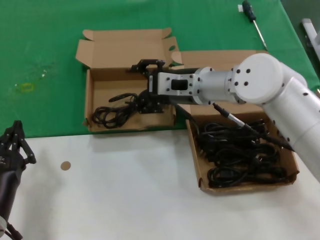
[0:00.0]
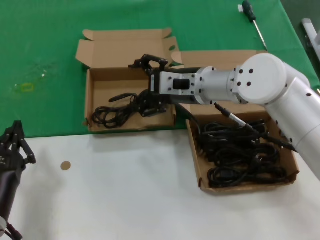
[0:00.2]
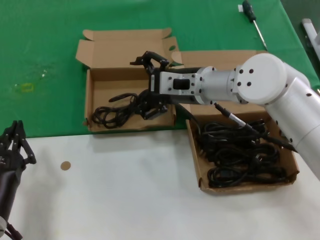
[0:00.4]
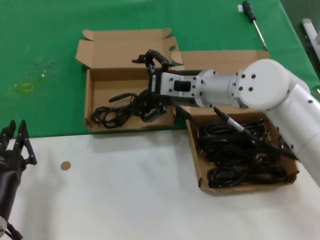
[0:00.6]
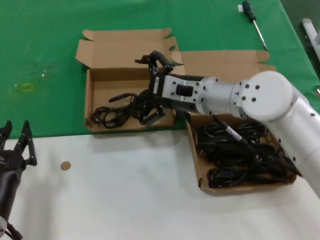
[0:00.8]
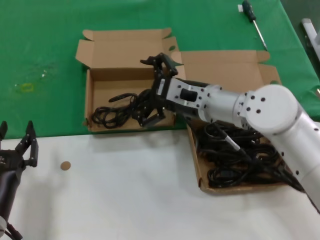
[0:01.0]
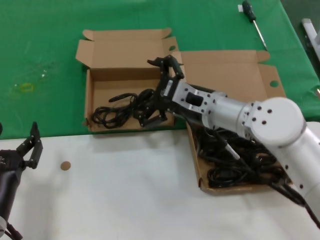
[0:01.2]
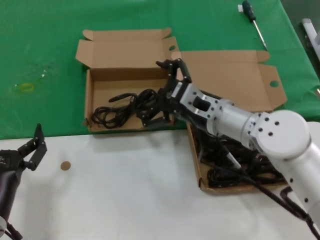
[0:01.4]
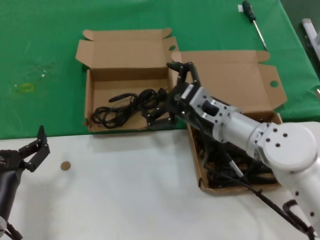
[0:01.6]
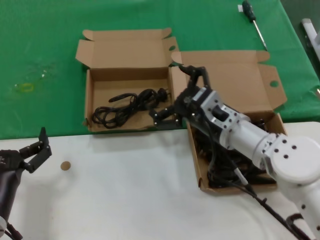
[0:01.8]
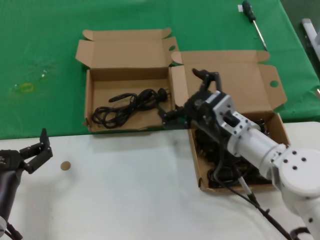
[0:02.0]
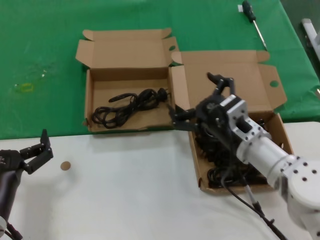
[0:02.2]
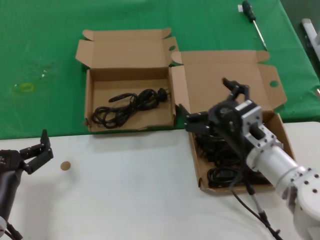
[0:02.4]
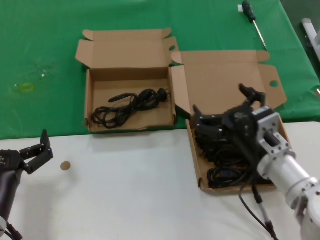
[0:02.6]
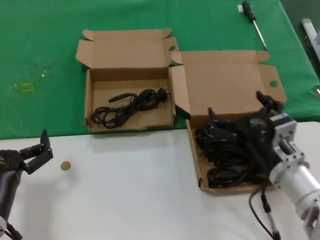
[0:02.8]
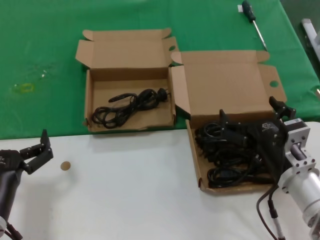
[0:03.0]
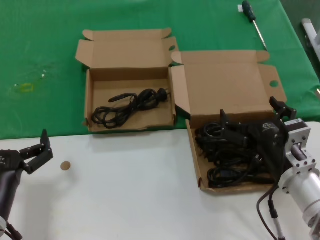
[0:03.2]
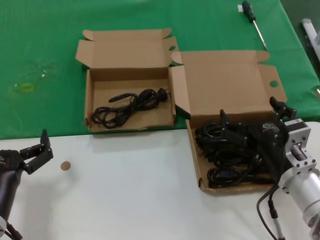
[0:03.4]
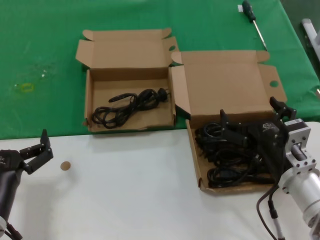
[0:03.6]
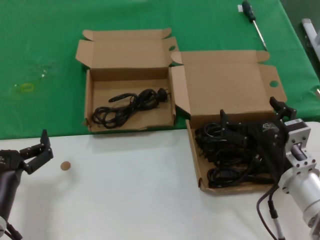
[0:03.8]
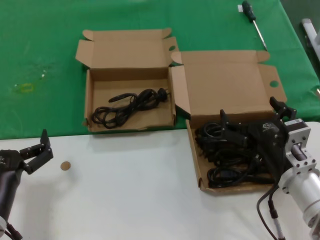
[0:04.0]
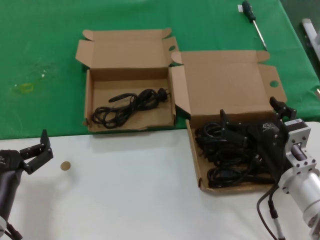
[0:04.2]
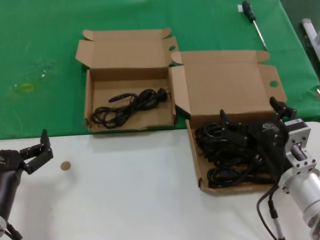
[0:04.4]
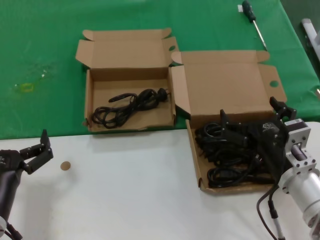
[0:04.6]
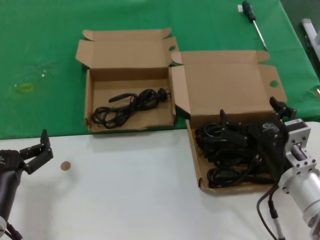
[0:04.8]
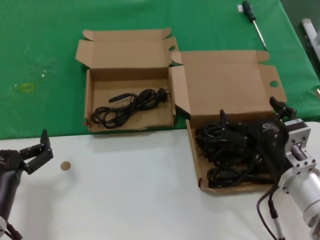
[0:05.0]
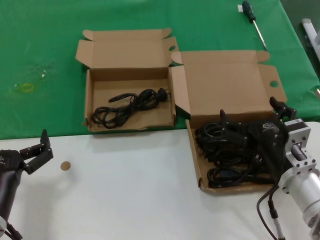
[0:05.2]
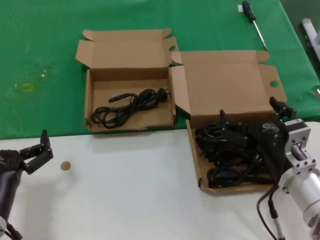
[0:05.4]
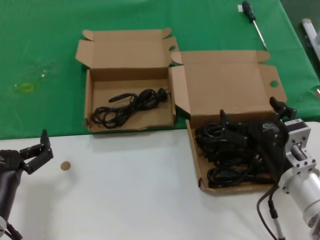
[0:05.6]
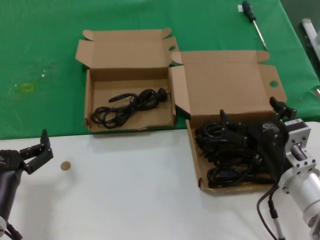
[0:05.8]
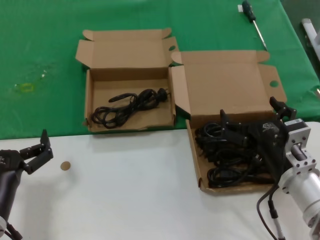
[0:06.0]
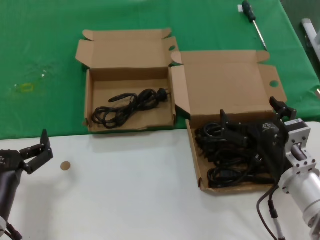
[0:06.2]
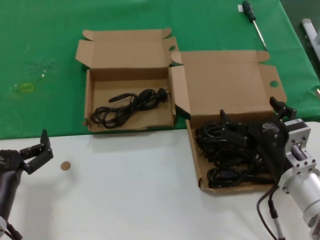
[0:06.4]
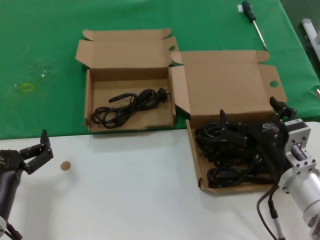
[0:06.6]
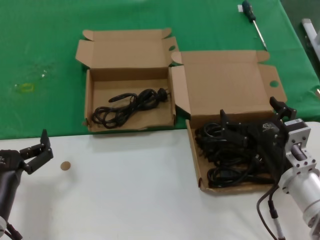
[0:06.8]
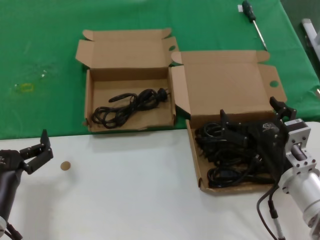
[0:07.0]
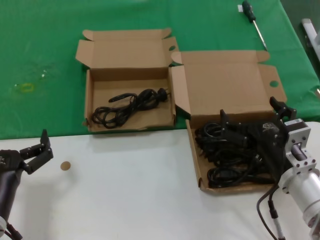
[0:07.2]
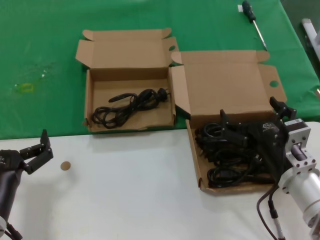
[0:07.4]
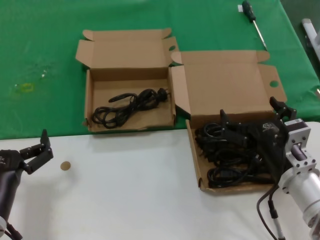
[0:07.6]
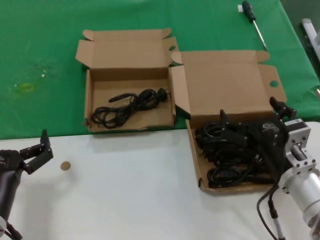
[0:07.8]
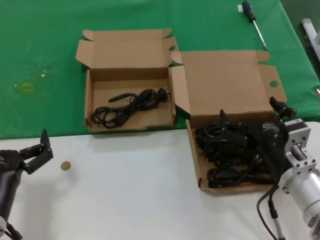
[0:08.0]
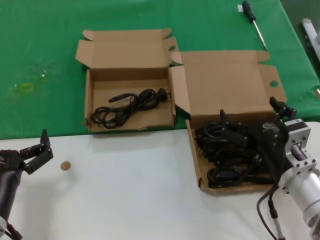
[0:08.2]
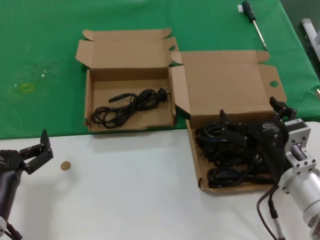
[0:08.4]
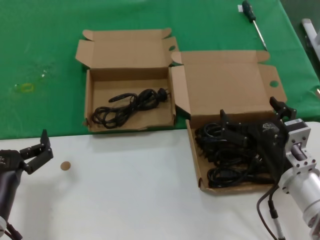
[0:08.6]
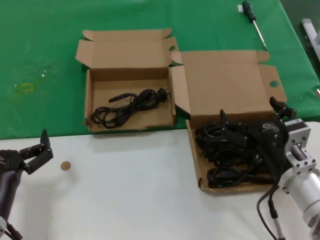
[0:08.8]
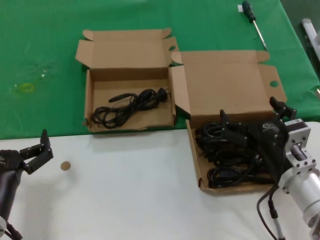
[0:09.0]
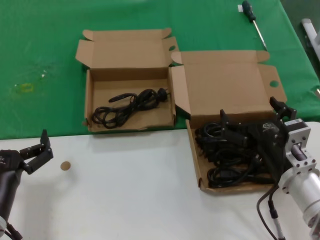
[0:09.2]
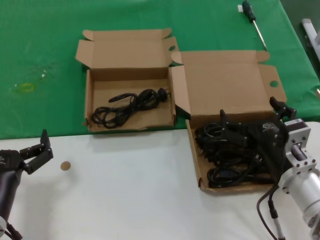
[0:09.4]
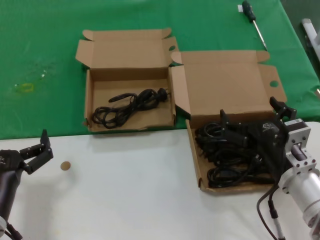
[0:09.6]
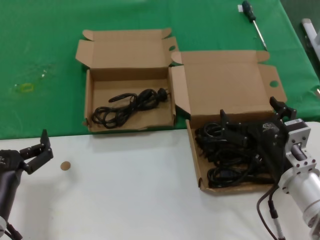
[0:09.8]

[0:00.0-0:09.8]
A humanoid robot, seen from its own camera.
Task of the whole recording: take the parts from the box containing them and put them into an empty box.
0:00.0 to 0:01.4: The right hand shifts about 10 cm downward and backward.
0:01.4 to 0:02.8: The right hand goes approximately 15 cm backward, to the right and downward.
0:02.8 to 0:04.2: The hands move only a little.
0:04.2 to 0:09.8: The two hands keep their place.

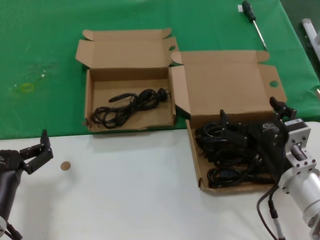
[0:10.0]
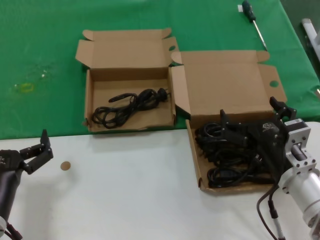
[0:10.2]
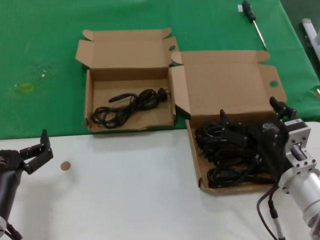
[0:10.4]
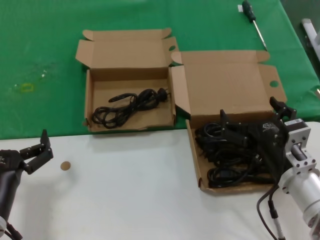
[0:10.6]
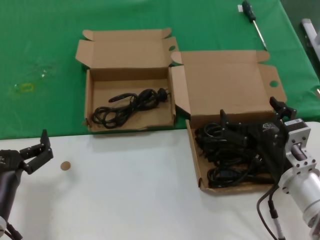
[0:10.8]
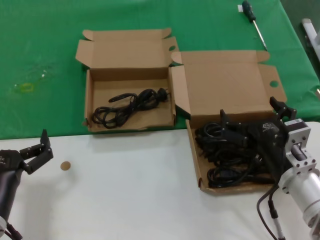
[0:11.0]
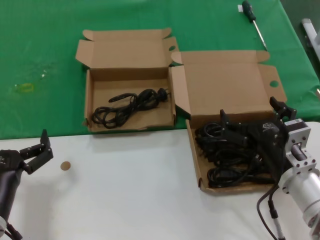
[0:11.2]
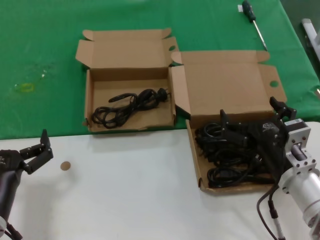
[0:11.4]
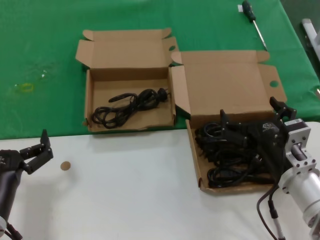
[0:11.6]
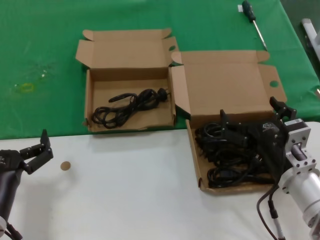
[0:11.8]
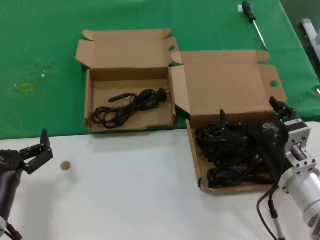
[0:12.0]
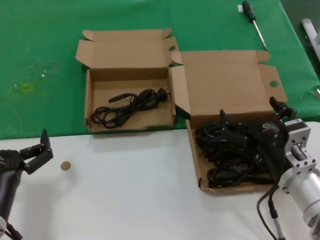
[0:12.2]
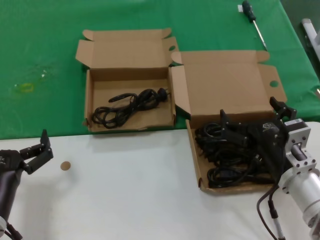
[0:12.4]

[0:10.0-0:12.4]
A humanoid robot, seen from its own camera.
Task of the whole recording: take the parts from the box containing them and put them into an empty box.
0:10.0 to 0:12.4: The two hands keep their place.

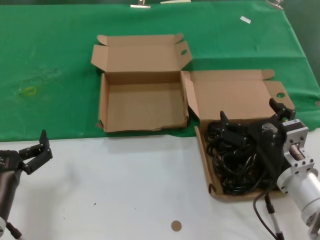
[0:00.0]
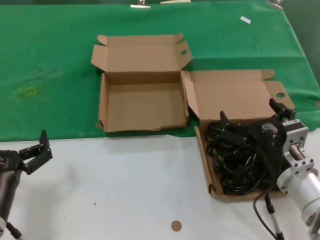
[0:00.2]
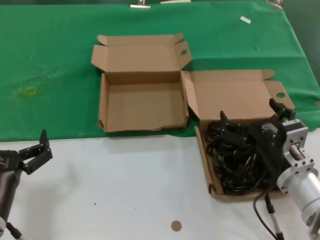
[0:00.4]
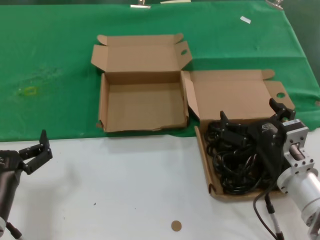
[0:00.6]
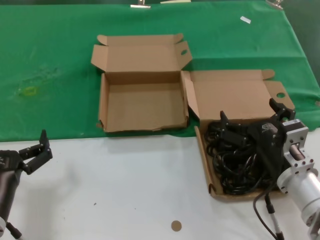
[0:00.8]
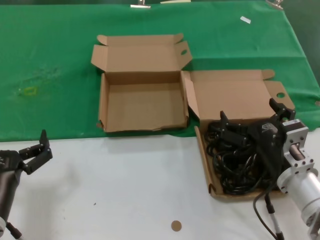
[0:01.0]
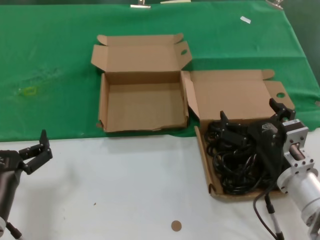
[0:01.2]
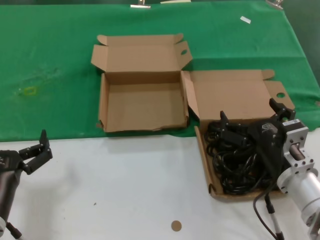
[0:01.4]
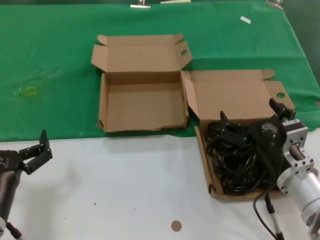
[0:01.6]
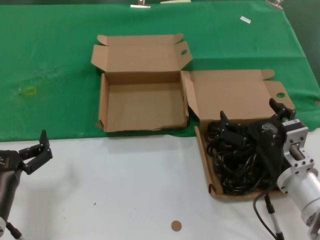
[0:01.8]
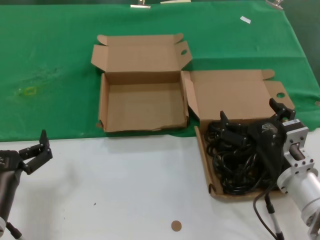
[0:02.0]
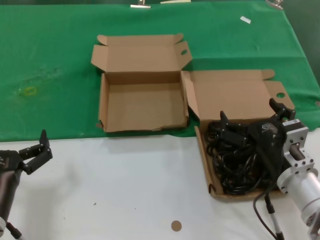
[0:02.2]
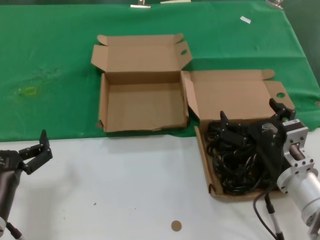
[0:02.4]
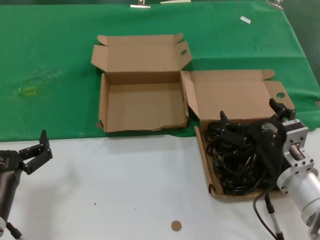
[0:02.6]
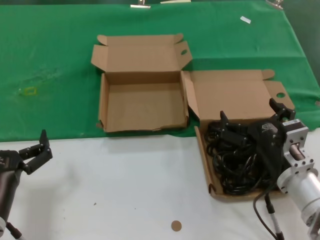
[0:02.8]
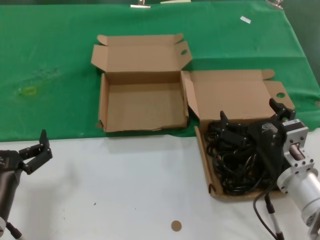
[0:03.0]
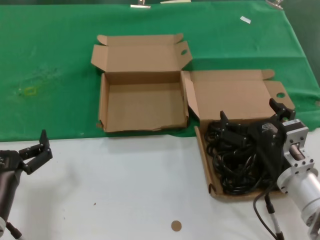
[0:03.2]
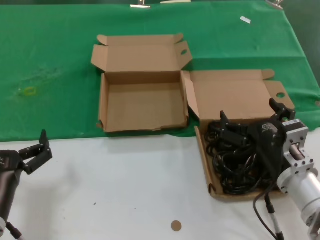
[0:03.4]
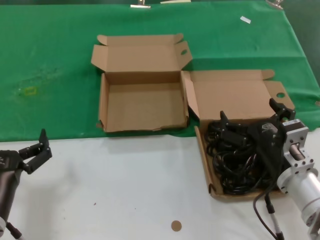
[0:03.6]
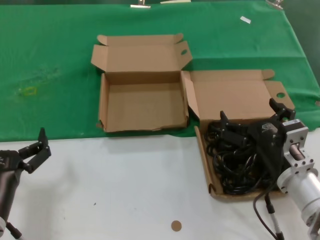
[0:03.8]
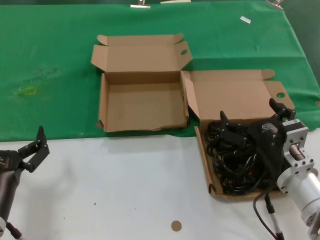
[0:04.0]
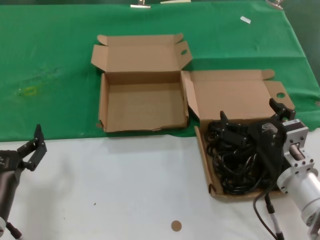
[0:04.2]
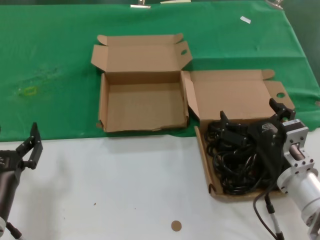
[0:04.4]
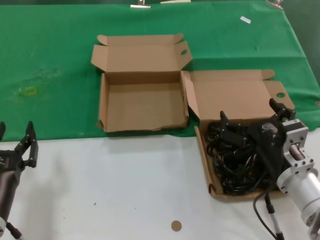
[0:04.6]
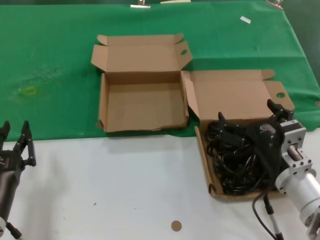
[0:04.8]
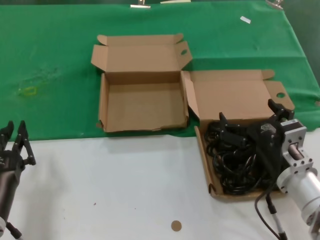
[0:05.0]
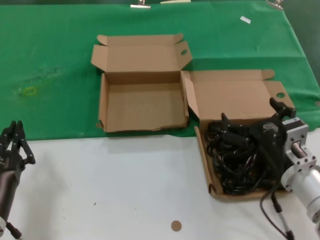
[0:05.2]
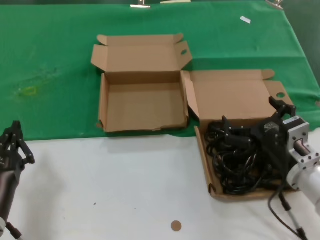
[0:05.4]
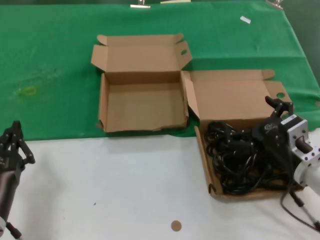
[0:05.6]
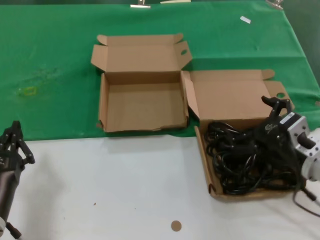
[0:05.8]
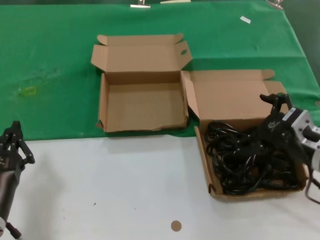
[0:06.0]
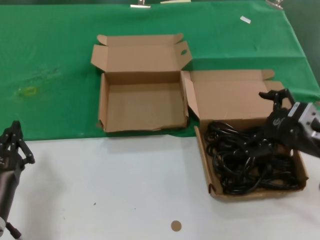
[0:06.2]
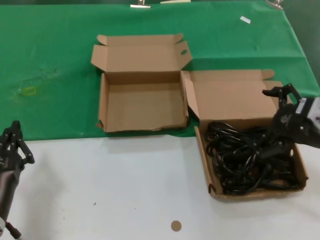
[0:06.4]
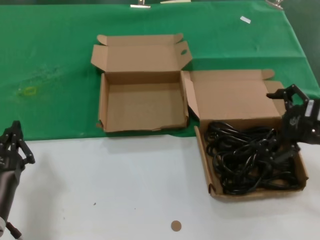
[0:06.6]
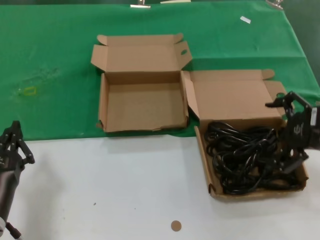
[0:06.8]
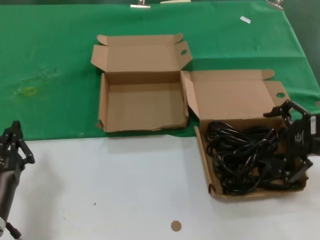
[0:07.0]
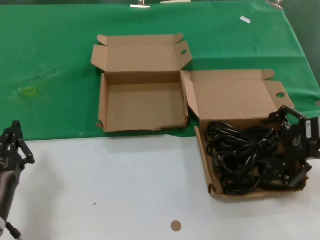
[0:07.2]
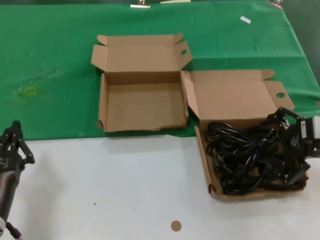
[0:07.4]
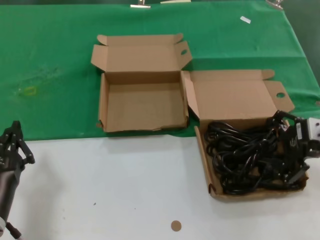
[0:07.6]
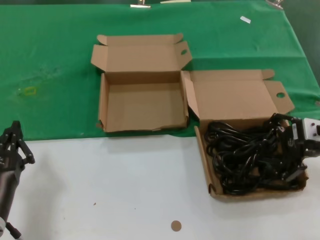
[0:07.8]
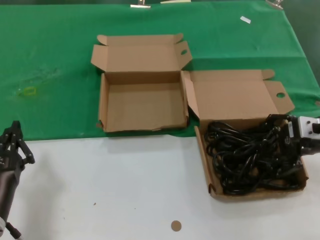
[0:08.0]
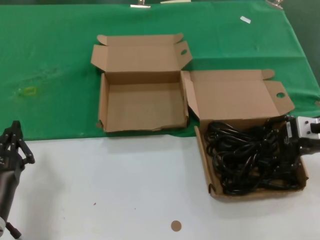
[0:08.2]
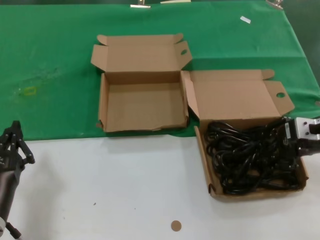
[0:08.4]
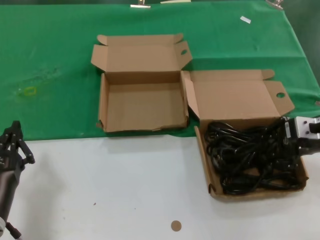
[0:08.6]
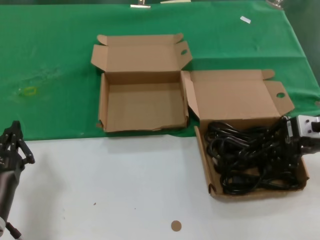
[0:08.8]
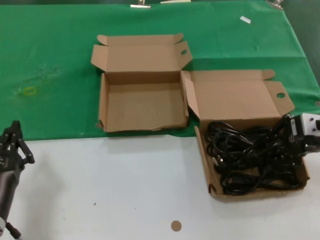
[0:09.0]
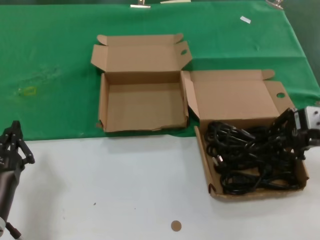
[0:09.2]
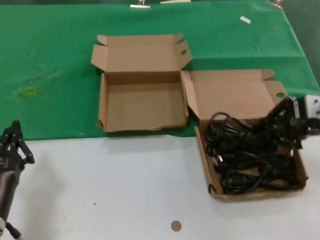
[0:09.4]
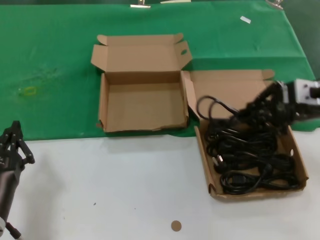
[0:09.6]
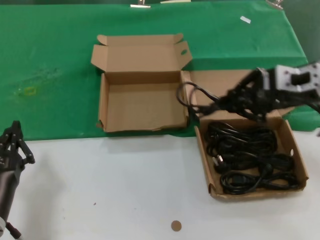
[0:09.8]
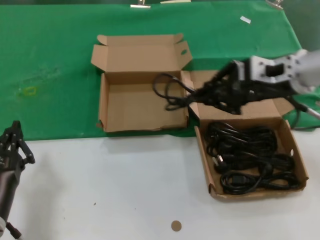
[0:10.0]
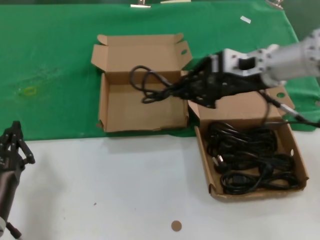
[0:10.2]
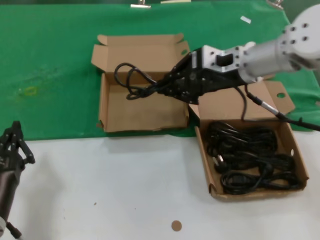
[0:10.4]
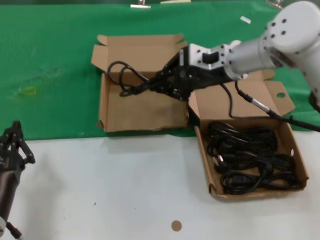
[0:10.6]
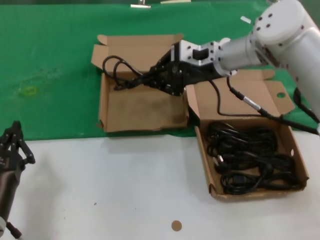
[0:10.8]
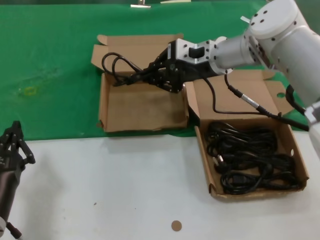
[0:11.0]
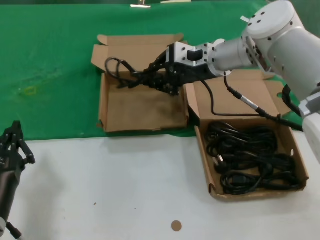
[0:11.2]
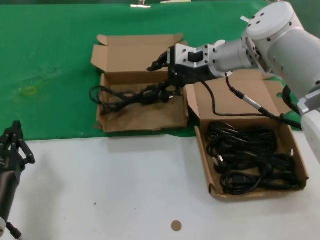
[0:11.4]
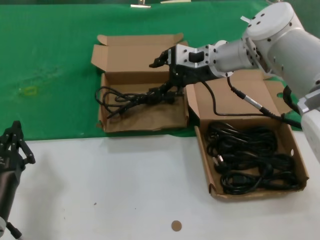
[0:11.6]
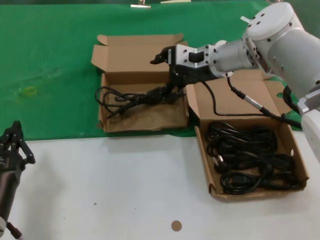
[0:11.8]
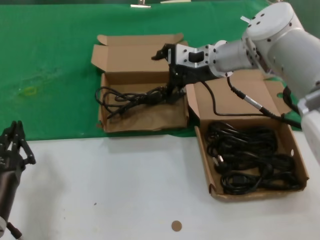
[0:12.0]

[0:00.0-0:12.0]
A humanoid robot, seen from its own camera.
Task of the whole recording: take the parts from the box containing them and put them into an empty box.
Step, 0:00.0 to 0:08.4: Grasp the data cable.
Step, 0:08.6 to 0:11.4: Place the data cable in the another box.
0:00.0 to 0:04.4: Both hands stay about where they are.
0:04.4 to 0:06.0: The right hand heads to the right and upward, covering some 10 cm.
0:06.0 to 0:07.6: The right hand heads upward and to the right, covering about 10 cm.
0:07.6 to 0:09.0: The hands make only small movements.
0:09.0 to 0:10.4: The right hand shifts approximately 20 cm to the left, forward and upward.
0:10.4 to 0:12.0: The right hand shifts approximately 5 cm forward.
